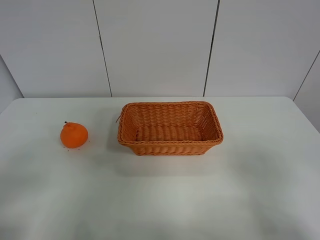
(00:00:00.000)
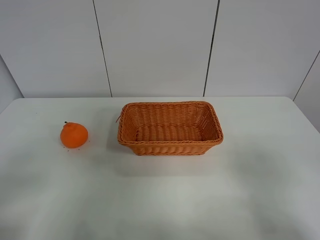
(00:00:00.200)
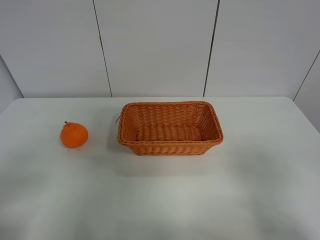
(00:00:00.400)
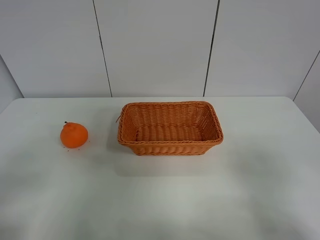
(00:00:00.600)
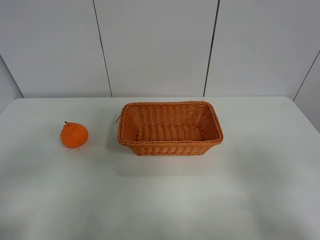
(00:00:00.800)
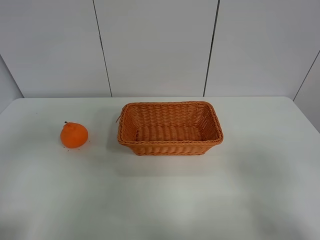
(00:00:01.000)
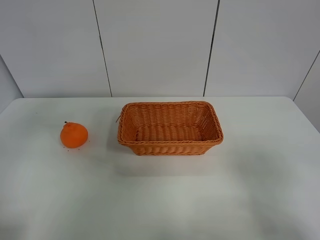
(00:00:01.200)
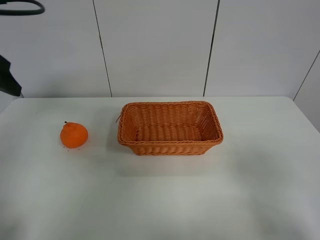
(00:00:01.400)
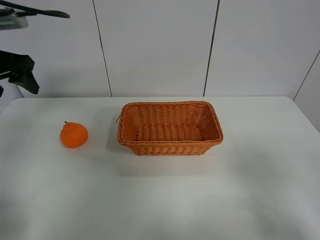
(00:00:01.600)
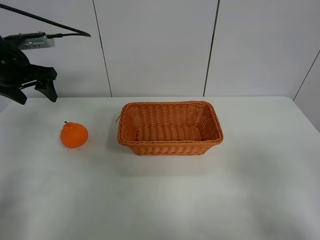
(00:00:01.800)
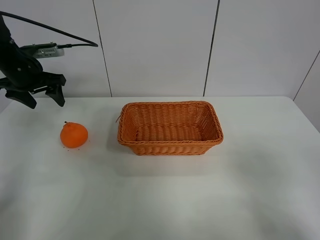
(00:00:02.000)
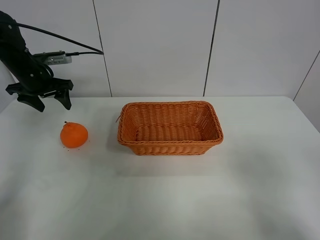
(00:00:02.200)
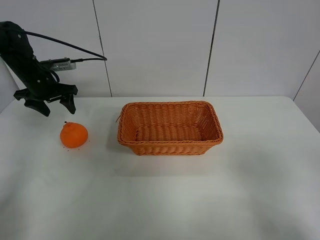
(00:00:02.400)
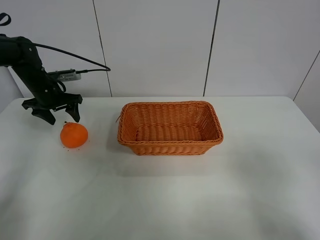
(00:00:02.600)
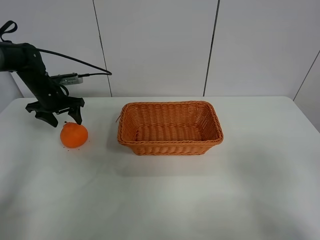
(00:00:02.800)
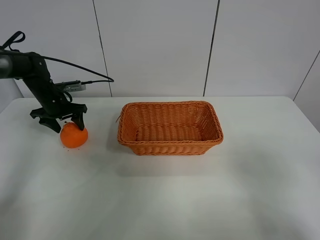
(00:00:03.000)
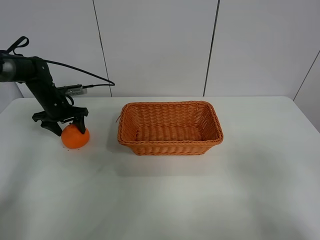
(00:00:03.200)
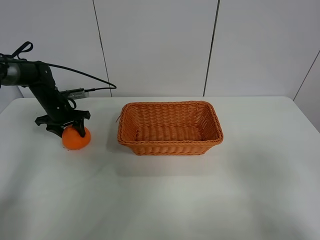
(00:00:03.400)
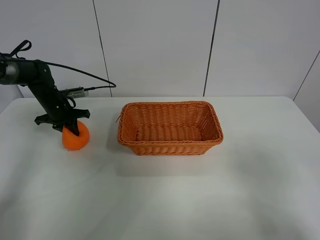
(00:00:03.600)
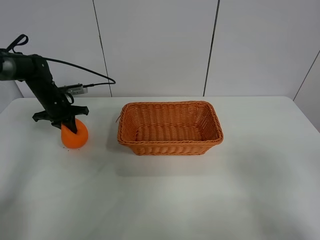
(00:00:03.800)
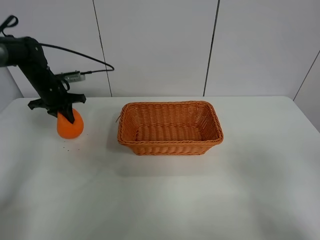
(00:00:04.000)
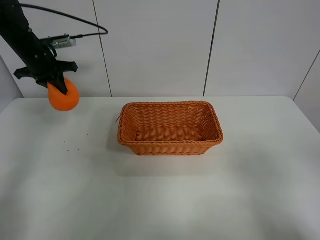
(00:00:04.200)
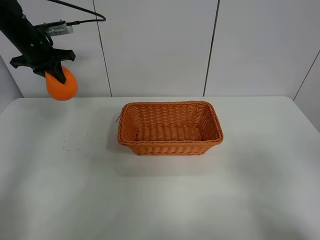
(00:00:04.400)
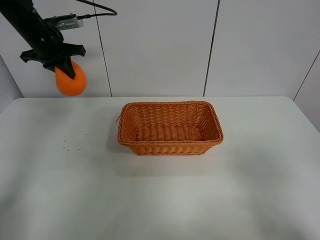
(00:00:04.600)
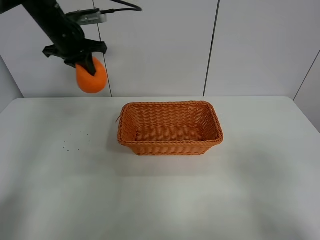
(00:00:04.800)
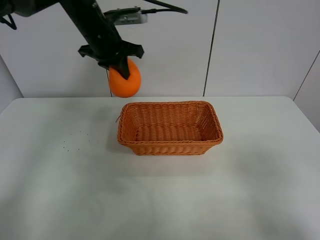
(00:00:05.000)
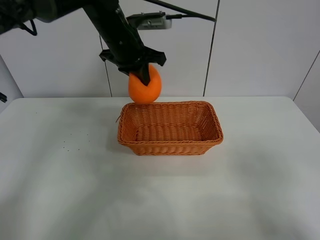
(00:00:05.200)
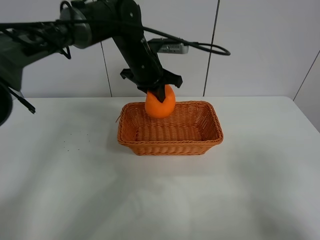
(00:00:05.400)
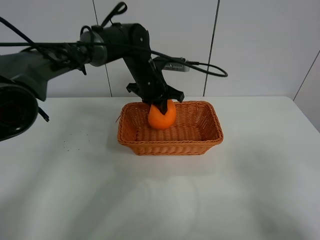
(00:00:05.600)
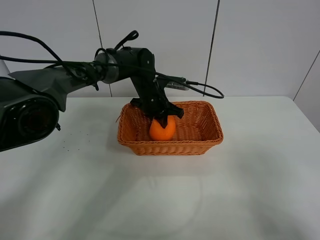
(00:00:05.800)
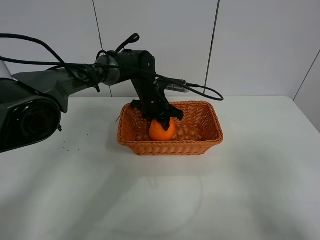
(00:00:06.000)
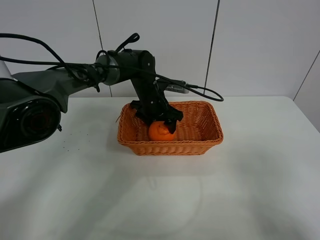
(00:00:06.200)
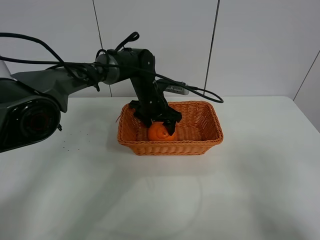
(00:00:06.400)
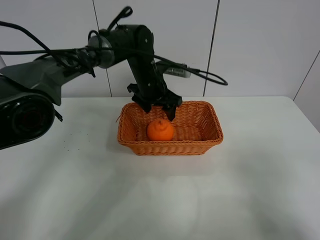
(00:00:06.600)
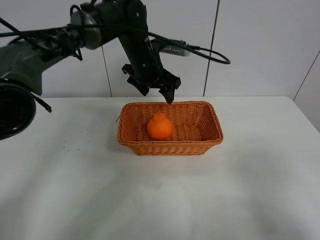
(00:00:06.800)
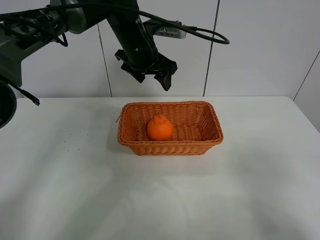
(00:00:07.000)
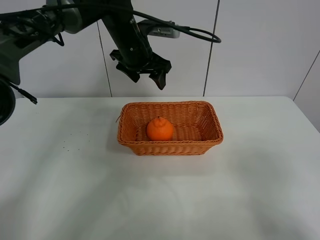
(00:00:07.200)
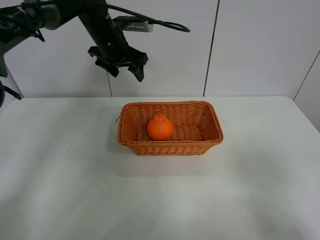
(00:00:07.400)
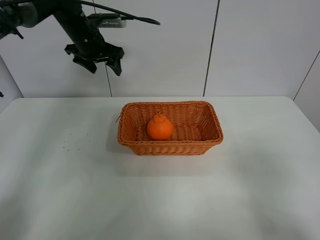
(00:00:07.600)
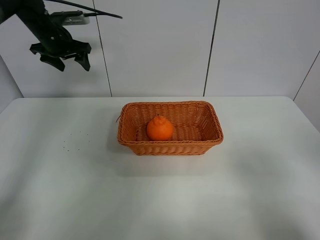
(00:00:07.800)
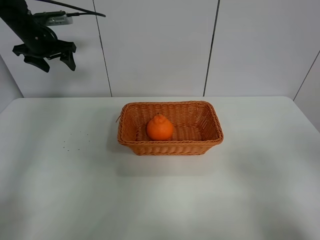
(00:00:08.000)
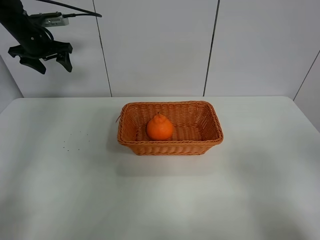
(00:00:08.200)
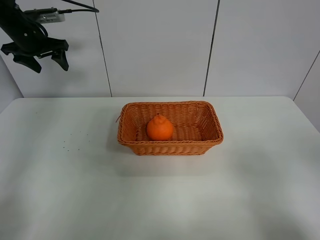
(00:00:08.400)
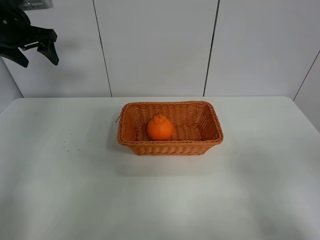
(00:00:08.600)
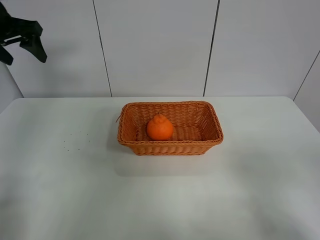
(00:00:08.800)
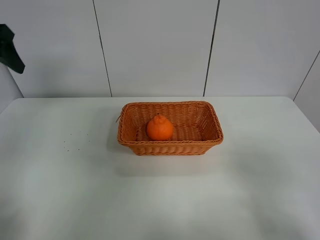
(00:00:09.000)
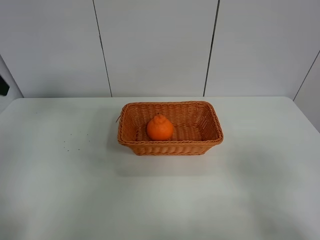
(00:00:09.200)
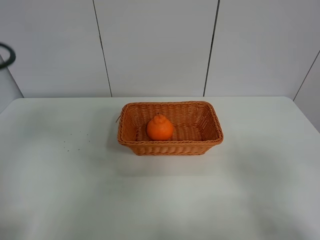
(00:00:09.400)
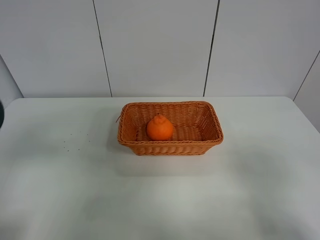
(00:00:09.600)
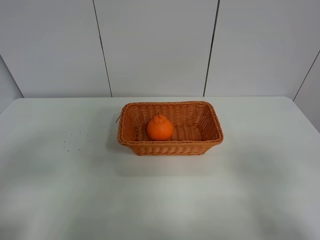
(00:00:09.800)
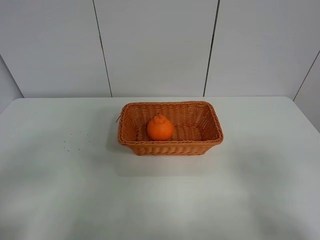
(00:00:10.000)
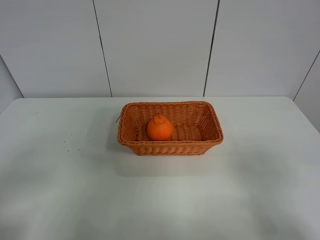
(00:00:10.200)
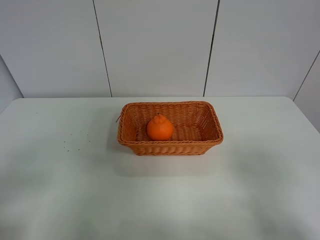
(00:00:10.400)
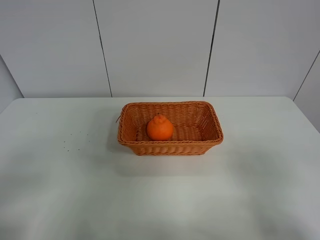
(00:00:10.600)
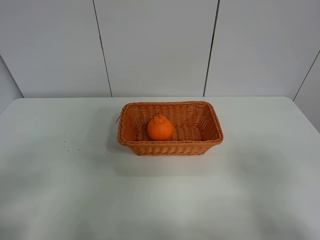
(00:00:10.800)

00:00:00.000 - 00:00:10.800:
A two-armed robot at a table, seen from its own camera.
Task of the whole recording: left gripper grabs oranges and puts them in the basket.
Step, 00:00:00.000 - 00:00:03.600: Grasp the orange with left gripper.
Step, 00:00:03.800 - 00:00:07.600: Place the orange in the basket with left gripper.
00:00:00.000 - 00:00:01.600: The left gripper shifts roughly 30 cm forward.
00:00:01.600 - 00:00:03.000: The left gripper moves downward and forward, some 25 cm.
00:00:03.000 - 00:00:04.600: The left gripper heads upward, covering about 15 cm, and closes its fingers.
00:00:04.600 - 00:00:06.200: The left gripper shifts about 30 cm to the right and downward, and opens its fingers.
00:00:06.200 - 00:00:07.800: The left gripper shifts some 30 cm to the left and upward.
00:00:07.800 - 00:00:09.200: The left gripper moves backward, roughly 25 cm.
00:00:09.200 - 00:00:10.800: The left gripper heads backward and downward, covering some 25 cm.
